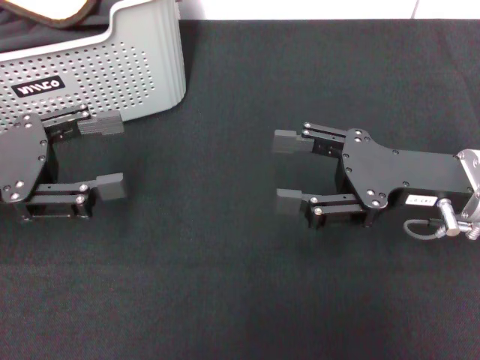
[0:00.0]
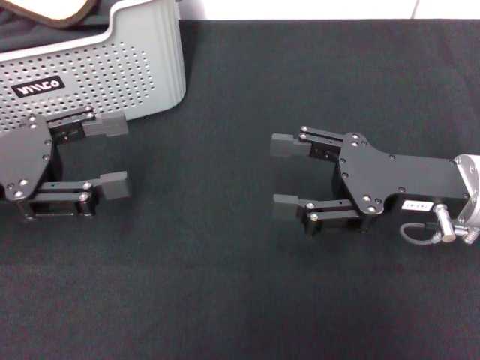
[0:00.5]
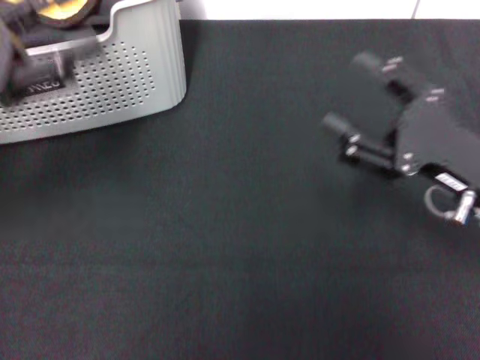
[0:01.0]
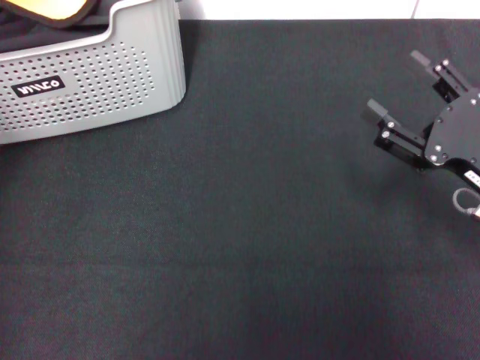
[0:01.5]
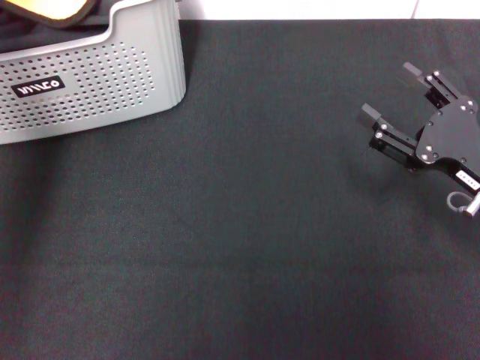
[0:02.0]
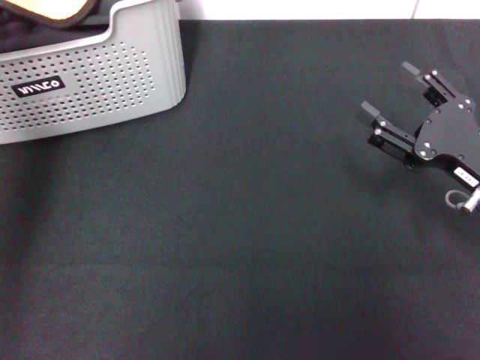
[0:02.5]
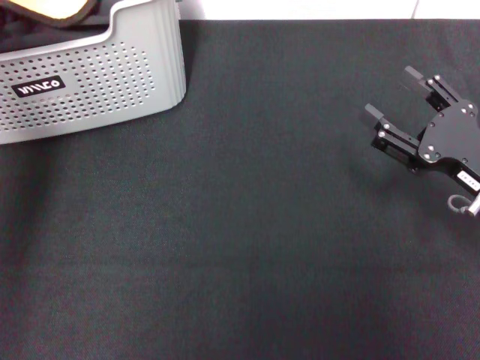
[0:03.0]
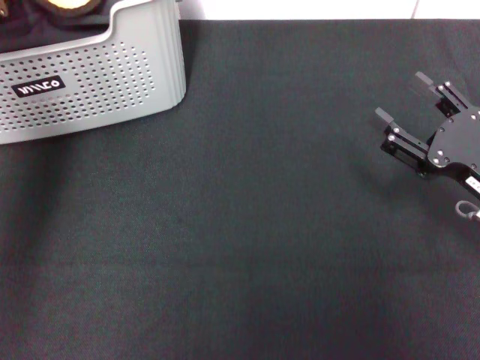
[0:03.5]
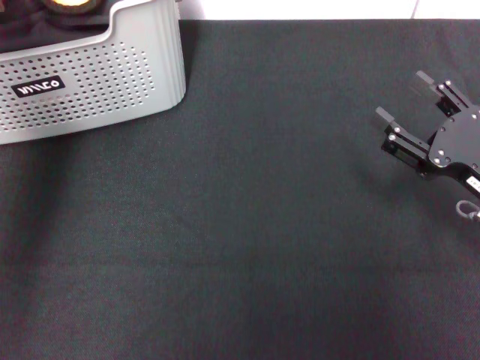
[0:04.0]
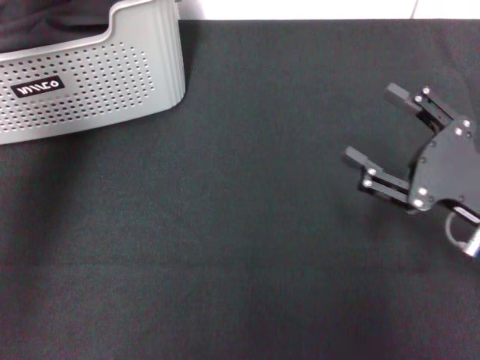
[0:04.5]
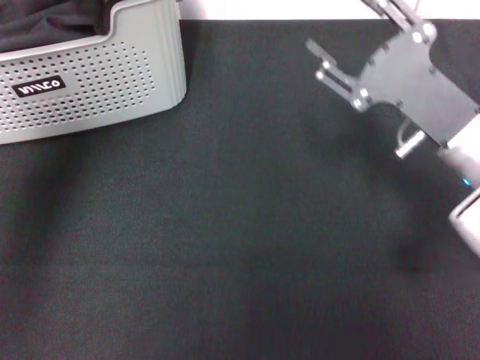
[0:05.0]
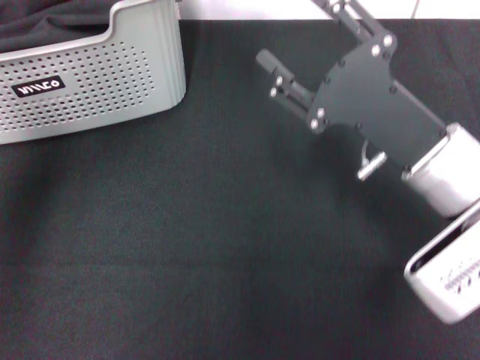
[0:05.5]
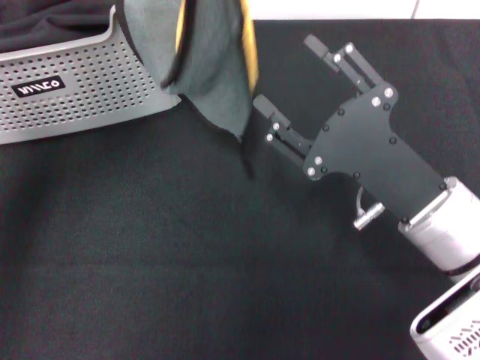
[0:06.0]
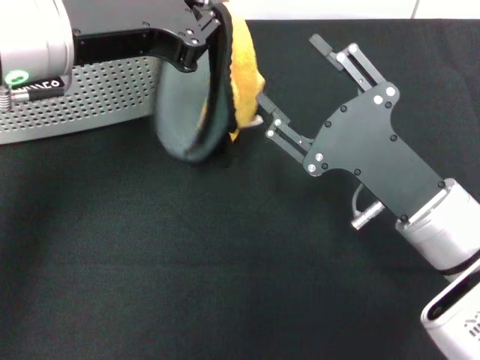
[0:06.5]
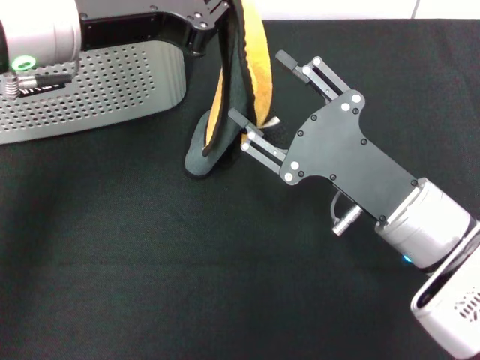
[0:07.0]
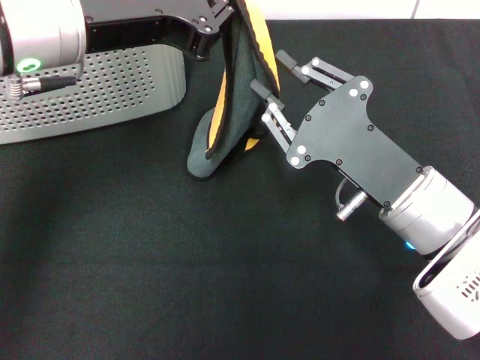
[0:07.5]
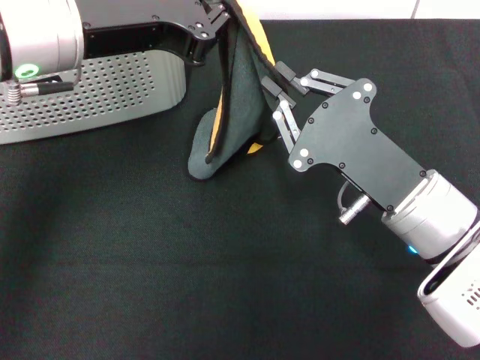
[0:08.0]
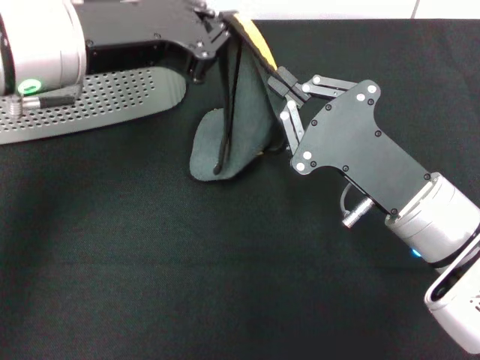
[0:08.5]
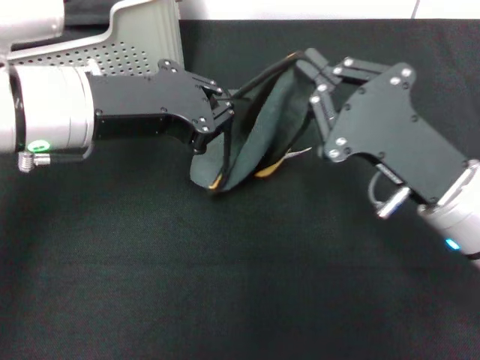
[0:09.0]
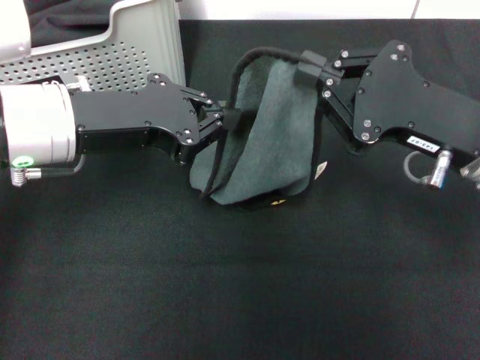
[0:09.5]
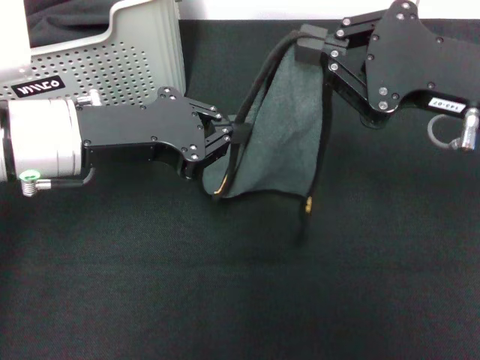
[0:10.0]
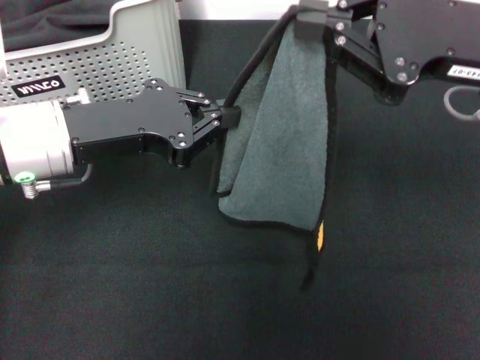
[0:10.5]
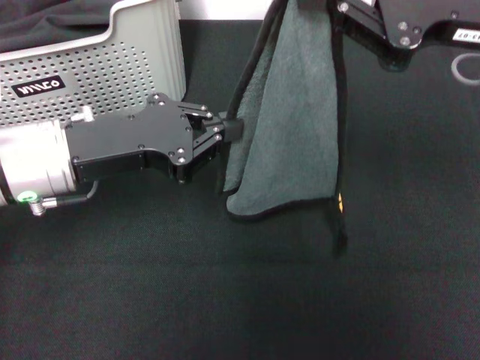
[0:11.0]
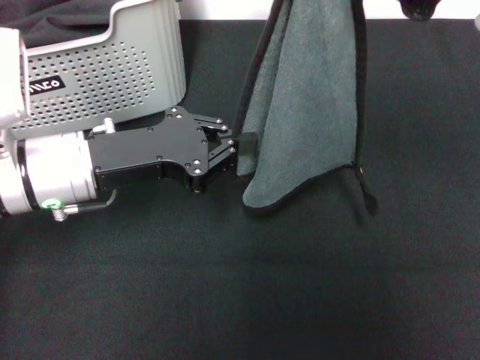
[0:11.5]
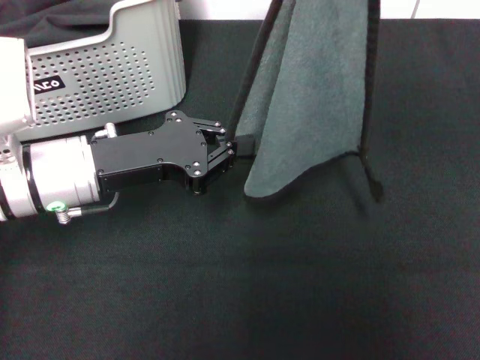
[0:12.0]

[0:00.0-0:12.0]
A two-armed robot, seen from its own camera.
Task of the whole recording: pick up the towel from the storage box and lay it flat on the black tablecloth.
Step, 0:00.0 to 0:03.5: Pick up a towel with the left gripper.
Step, 0:04.0 to 0:08.5: Spread the towel flat with the left gripper.
0:00.0 to 0:02.0: The left gripper moves upward and forward, about 15 cm; the right gripper travels to the right by roughly 5 cm.
0:02.0 to 0:04.0: The left gripper closes up.
0:04.0 to 0:06.0: The right gripper goes approximately 10 cm to the left. The left gripper goes some 10 cm to the right and backward.
0:06.0 to 0:08.0: The left gripper moves downward, approximately 5 cm. The right gripper closes up.
0:08.0 to 0:10.0: The right gripper heads upward and to the right, covering about 15 cm; the left gripper travels downward by some 10 cm.
0:10.0 to 0:12.0: The left gripper shifts about 5 cm downward. Meanwhile the right gripper goes approximately 10 cm upward.

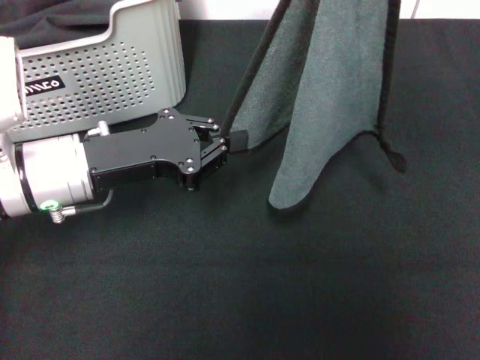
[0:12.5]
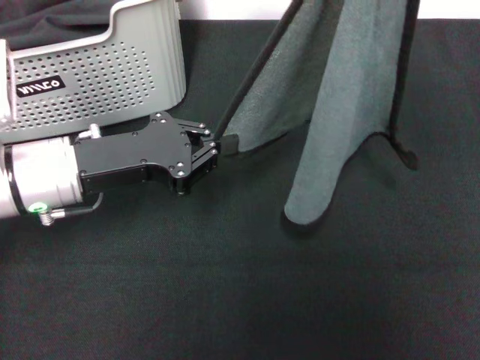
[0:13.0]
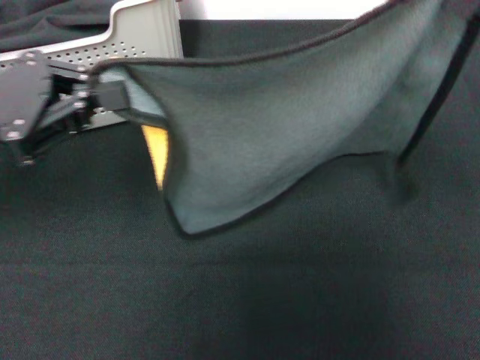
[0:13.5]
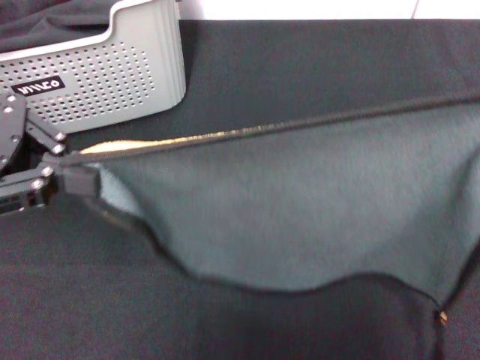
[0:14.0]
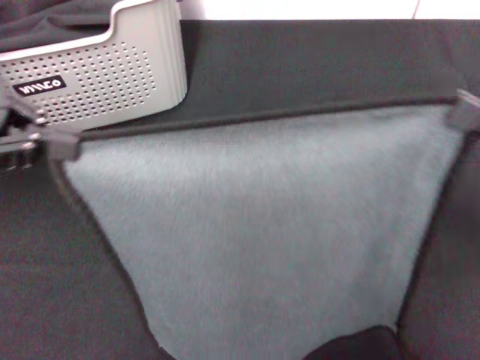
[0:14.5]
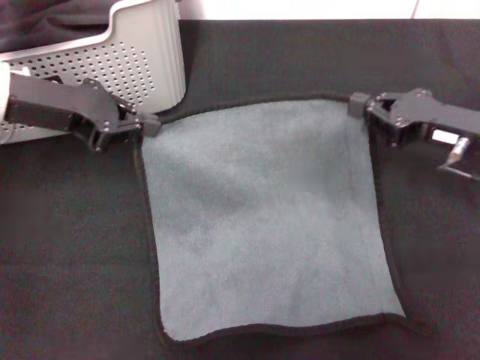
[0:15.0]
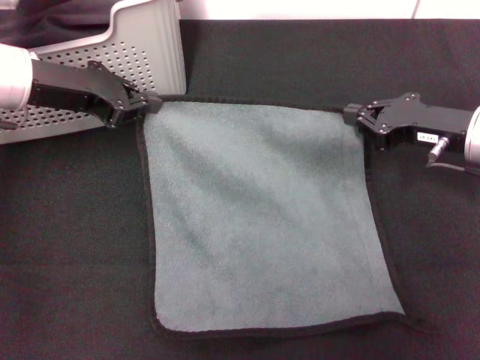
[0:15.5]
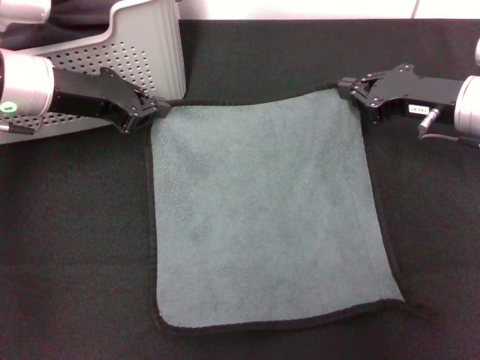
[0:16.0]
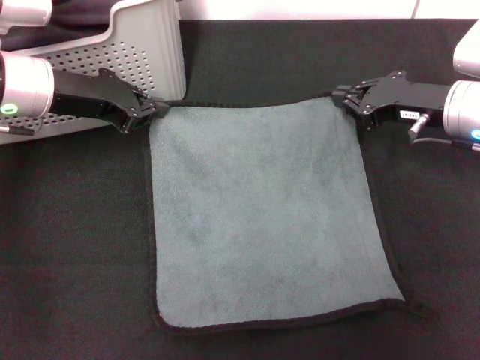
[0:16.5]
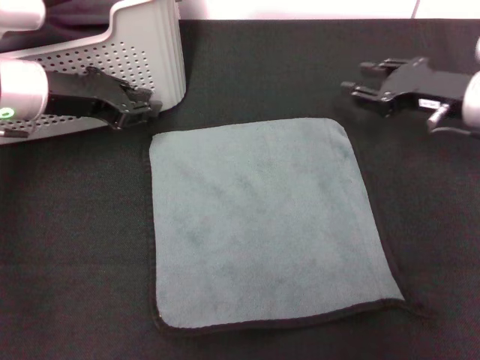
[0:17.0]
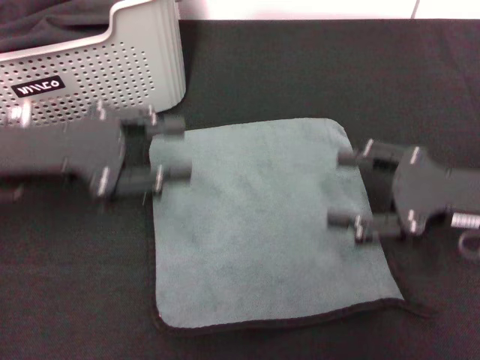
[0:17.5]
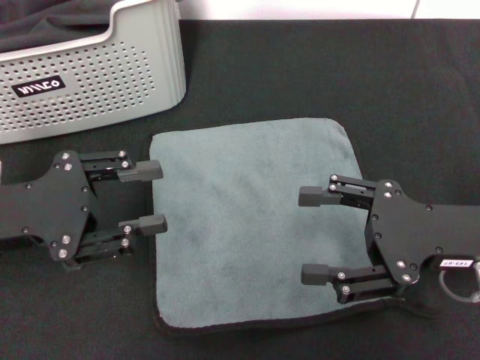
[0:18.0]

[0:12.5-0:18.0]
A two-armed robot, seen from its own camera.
Task of the whole recording: pick up the towel from the storage box and lay it flat on the black tablecloth.
Step, 0:12.5 to 0:16.5: Spread the towel flat with the right gripper.
0:12.5 to 0:14.5: The right gripper heads downward and backward, covering roughly 20 cm. The left gripper moves upward and to the left, some 20 cm.
0:14.5 to 0:16.0: The left gripper shifts some 15 cm forward, downward and to the right; the right gripper is displaced forward and to the left by approximately 15 cm.
0:16.0 to 0:18.0: Both grippers move backward, some 15 cm. The right gripper opens up; the left gripper opens.
